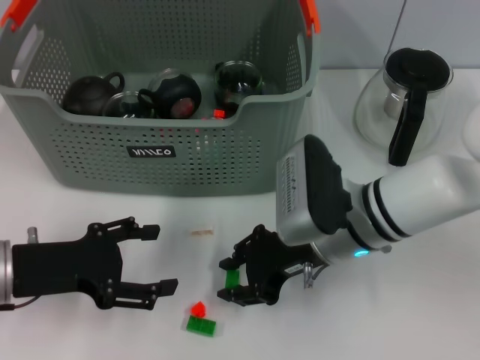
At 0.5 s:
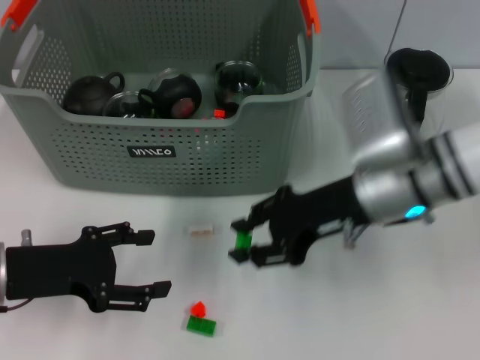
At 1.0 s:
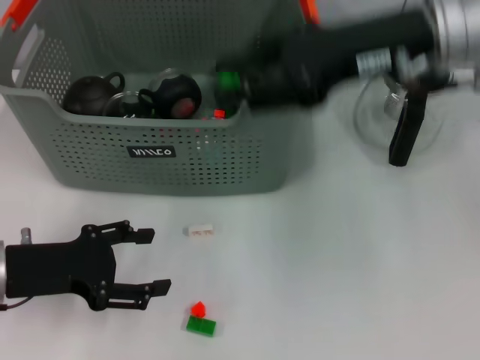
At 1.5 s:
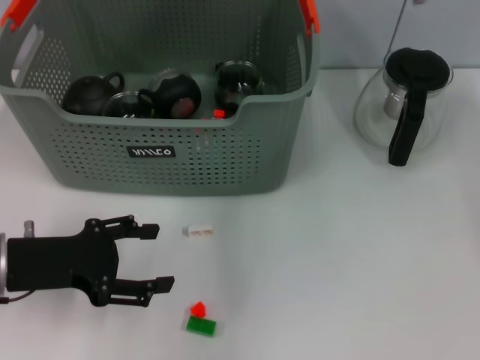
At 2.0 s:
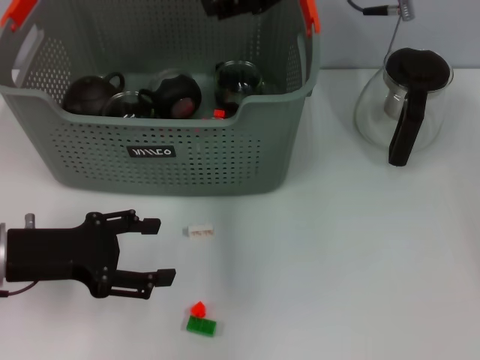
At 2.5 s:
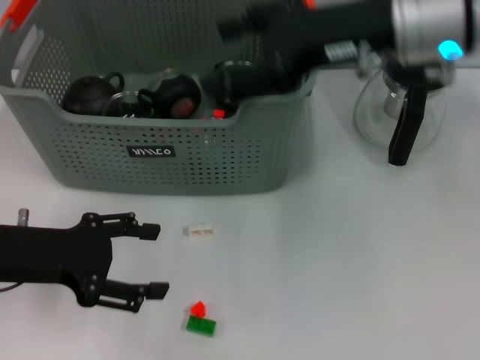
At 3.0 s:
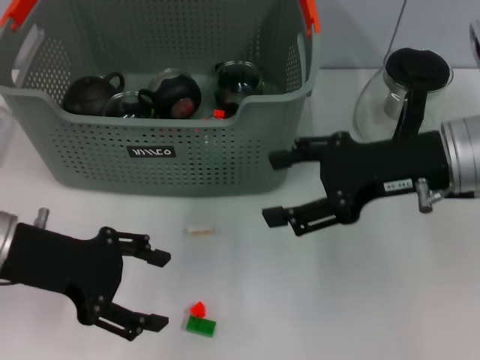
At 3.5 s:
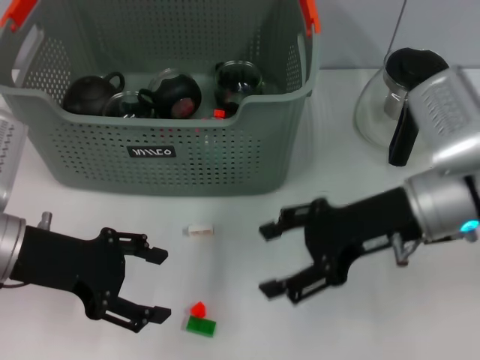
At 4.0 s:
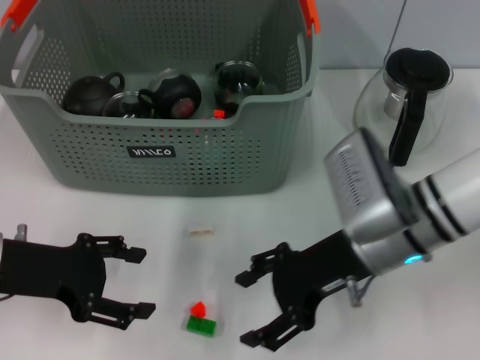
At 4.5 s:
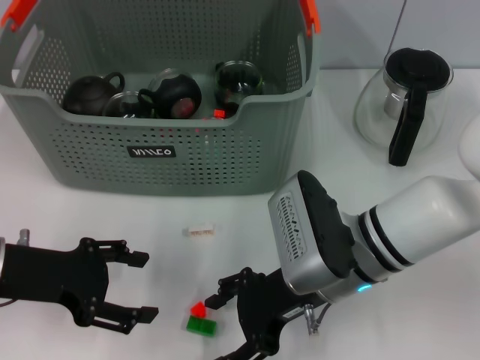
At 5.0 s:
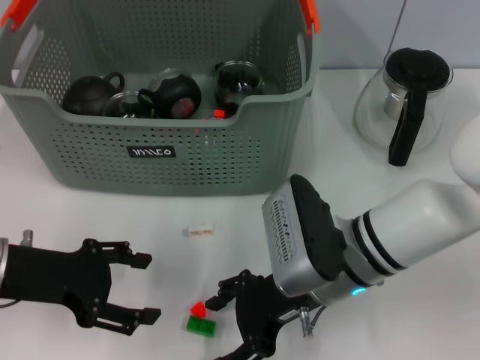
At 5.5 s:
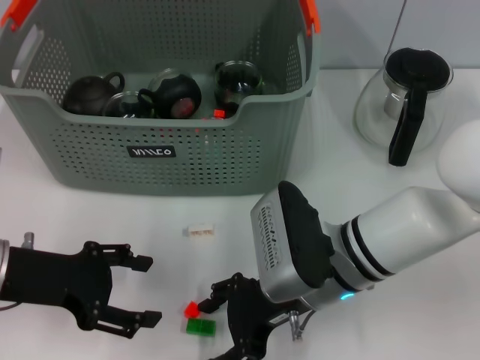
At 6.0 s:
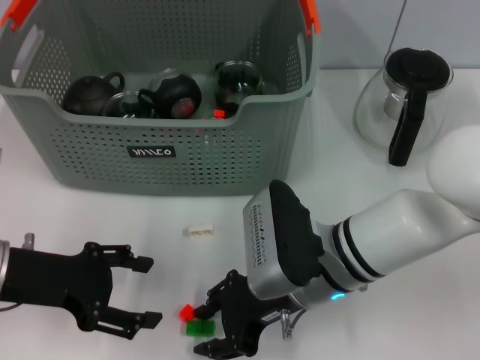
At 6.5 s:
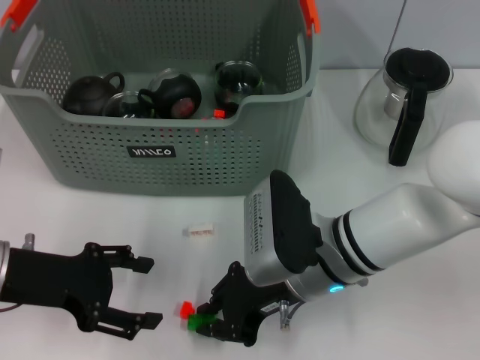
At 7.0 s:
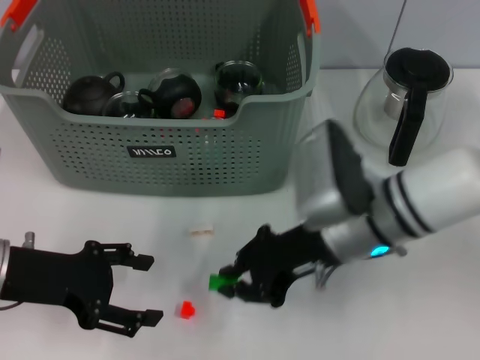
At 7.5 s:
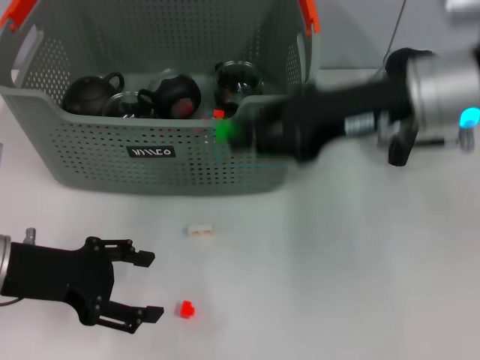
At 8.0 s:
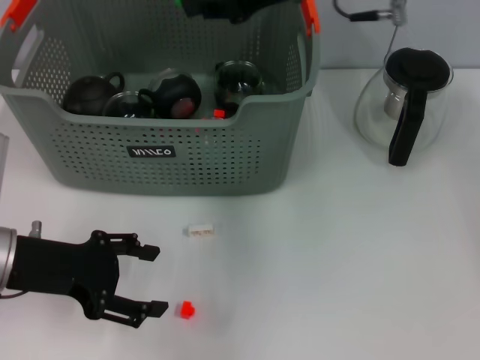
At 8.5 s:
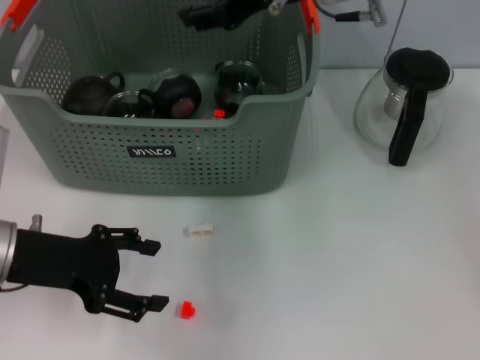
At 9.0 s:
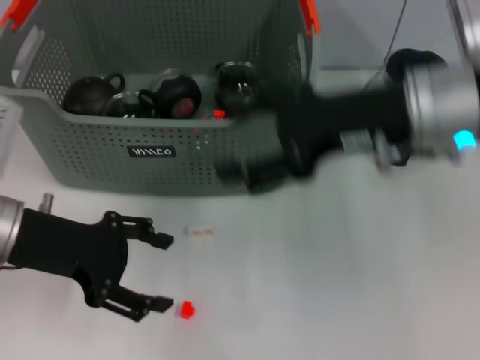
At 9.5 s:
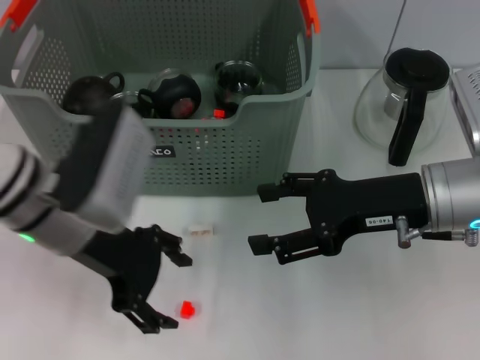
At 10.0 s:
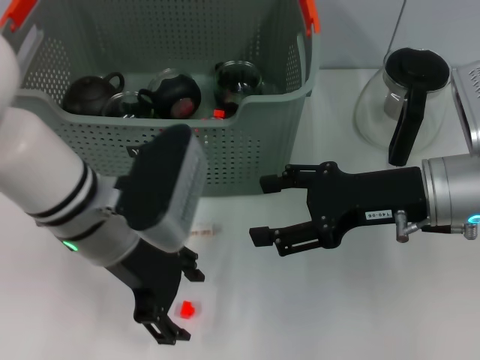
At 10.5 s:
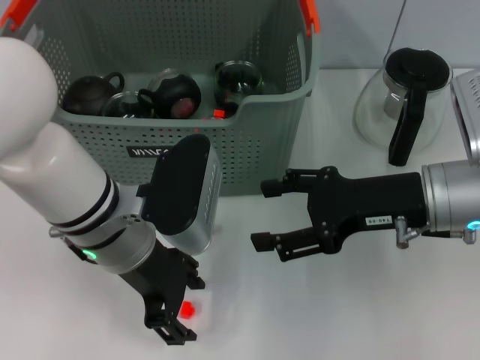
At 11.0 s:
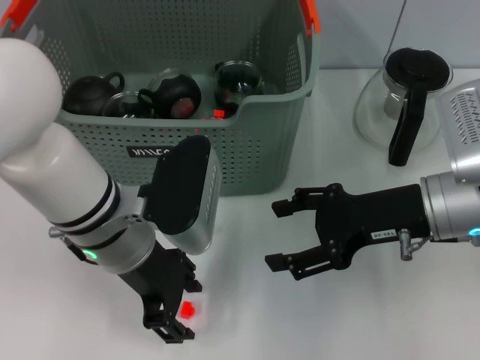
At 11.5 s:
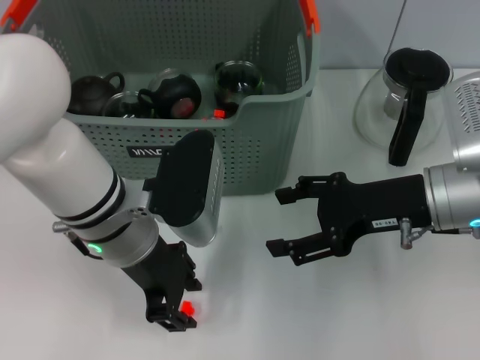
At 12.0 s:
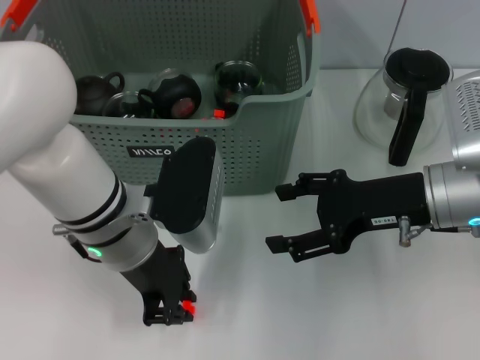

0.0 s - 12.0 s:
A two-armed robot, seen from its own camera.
Task of the whole recording: pick up the teacup on the table and place it into the storage bin, pick up the block on the table and place it into the storage bin.
Step, 0.0 s - 1.5 s: Place the green block in the storage box with right gripper.
Step, 2.0 s - 6.0 s: Grasp the green block with right gripper.
Step, 6.5 s - 8.0 s: Place the green block in the storage box with right gripper.
0.0 s - 2.0 s: The right gripper goes roughly 20 cm upward and forward.
2.0 s - 4.0 s: The right gripper travels downward and backward by approximately 20 cm.
4.0 s - 6.0 s: The right gripper heads to the left, covering about 5 cm.
6.0 s - 8.0 s: The right gripper travels upward and forward by about 25 cm, and closes up.
8.0 s - 10.0 s: The left gripper shifts approximately 15 cm to the right; the right gripper shifts some 20 cm downward, backward and to the right, and opens.
10.0 s - 12.0 s: The left gripper closes its fingers.

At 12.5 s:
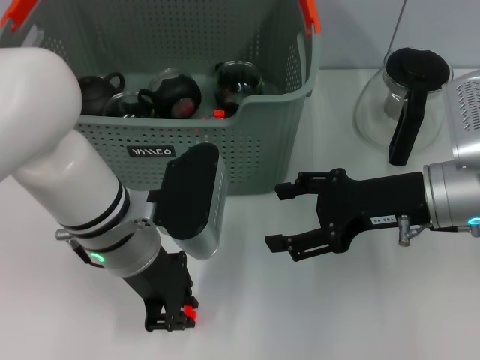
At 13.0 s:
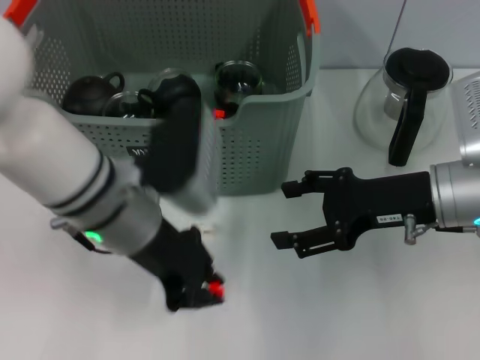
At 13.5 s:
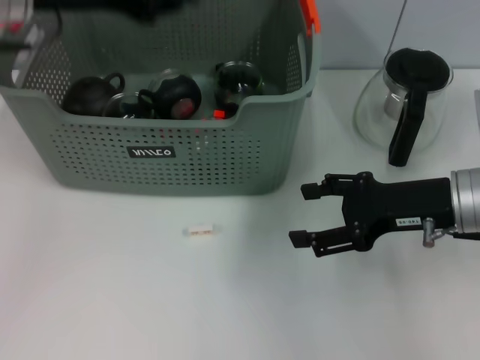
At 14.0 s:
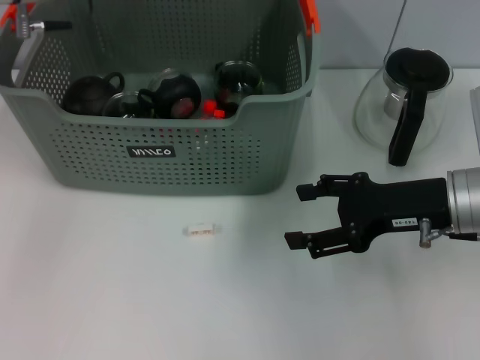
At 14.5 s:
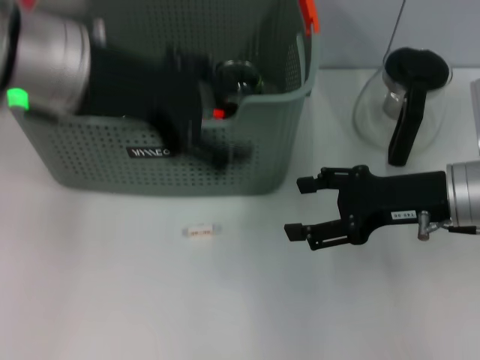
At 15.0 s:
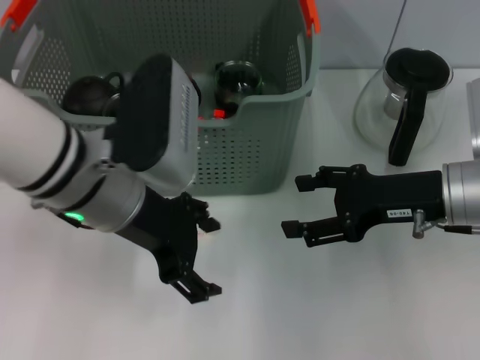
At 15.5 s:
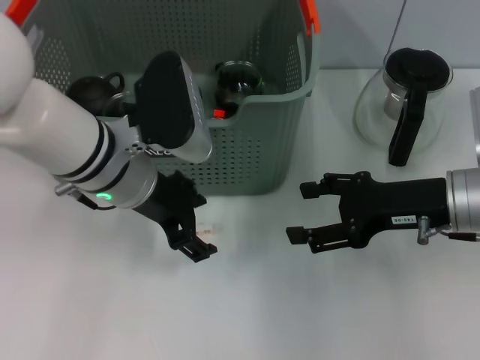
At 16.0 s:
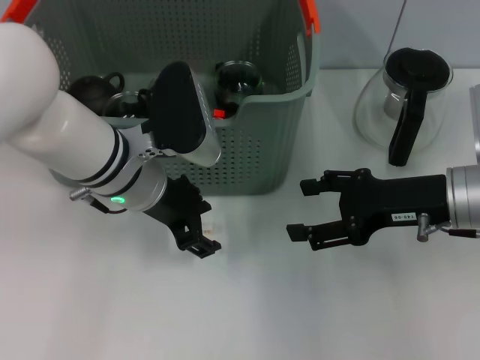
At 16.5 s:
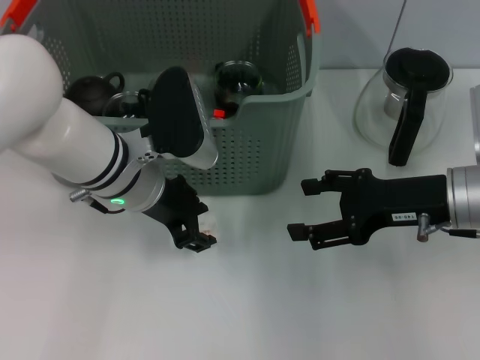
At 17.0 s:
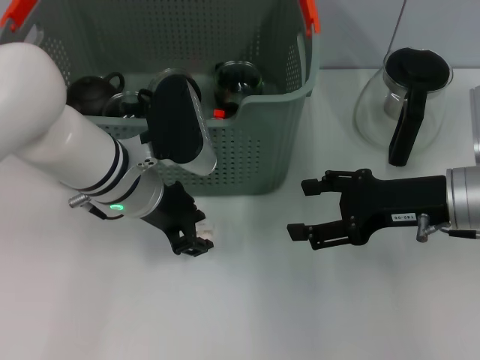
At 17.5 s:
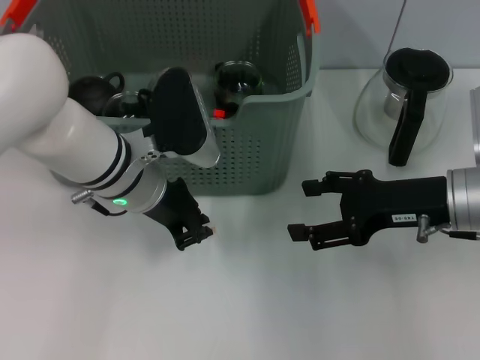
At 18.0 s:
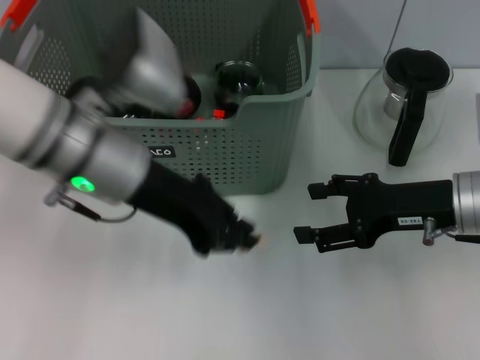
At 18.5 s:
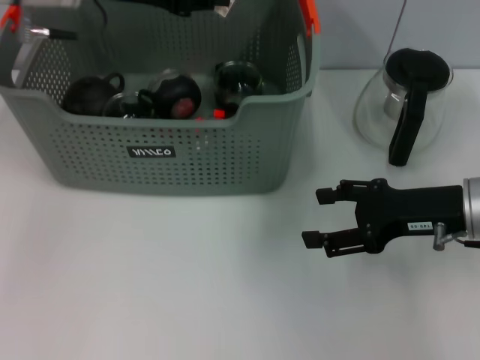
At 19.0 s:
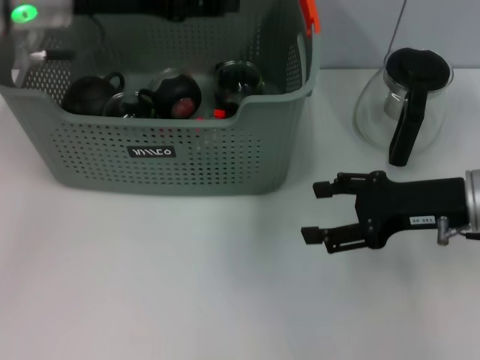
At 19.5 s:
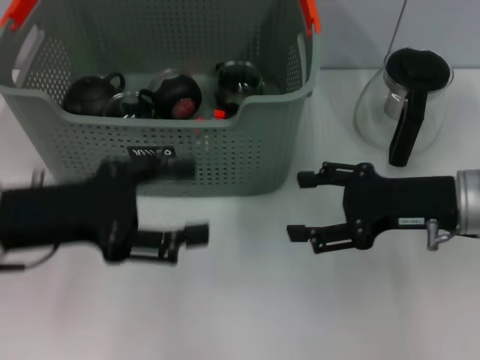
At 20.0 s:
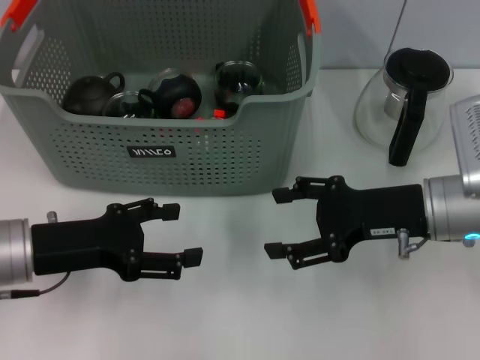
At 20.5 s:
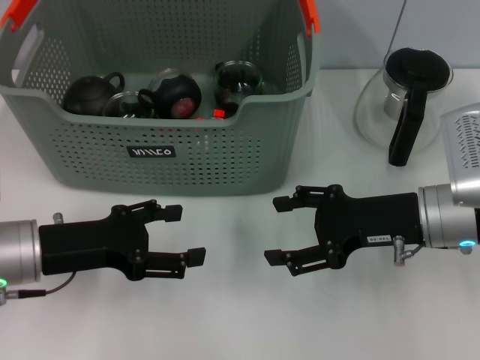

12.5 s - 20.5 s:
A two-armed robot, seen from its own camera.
Task of the whole recording: pick up the teacup on the table and place it into the storage bin, pick up the block on the table and place it into the storage bin.
Step, 12.5 s - 14.0 s: Place the orange block in the storage box with left gripper.
Step, 14.5 s - 17.0 s: Grasp the white block with left gripper.
Step, 17.5 s - 18.5 s: Place the white block in the storage box with left gripper.
12.5 s - 14.5 s: The left gripper heads upward, covering roughly 15 cm, and opens its fingers.
14.5 s - 16.5 s: The left gripper goes some 15 cm downward.
16.5 s - 18.5 s: The left gripper travels upward and to the left by some 15 cm, and closes up.
18.5 s - 20.5 s: The left gripper shifts approximately 25 cm downward and backward, and opens its fingers.

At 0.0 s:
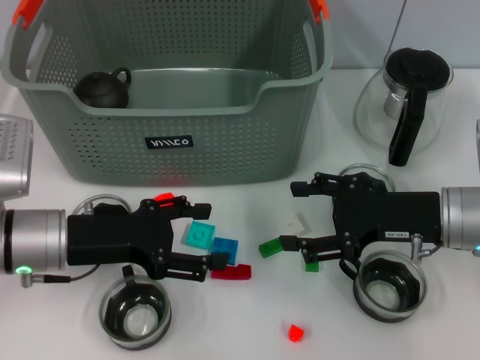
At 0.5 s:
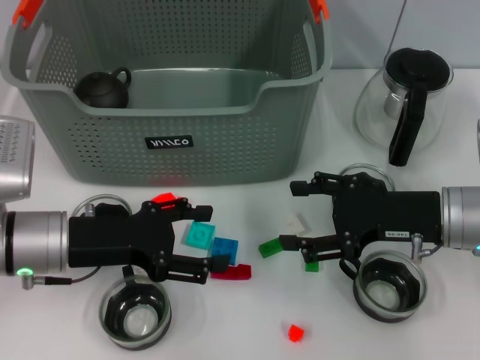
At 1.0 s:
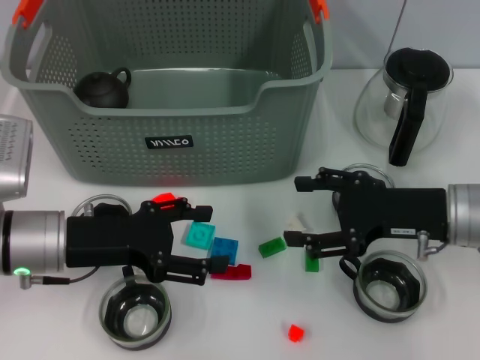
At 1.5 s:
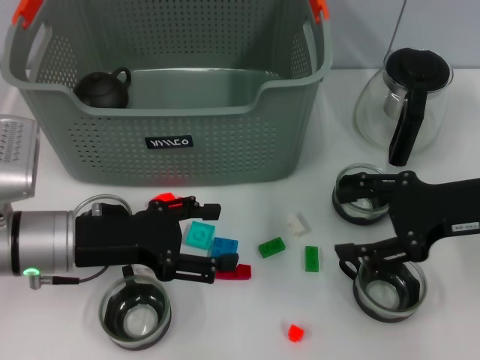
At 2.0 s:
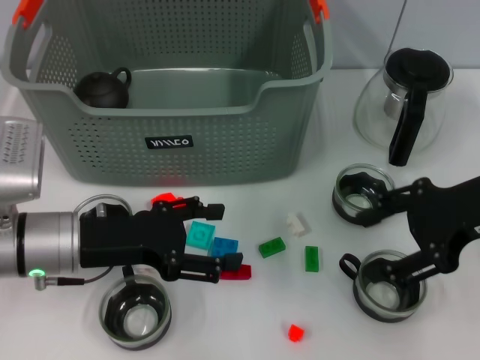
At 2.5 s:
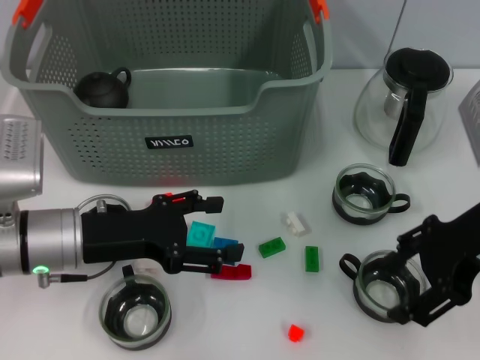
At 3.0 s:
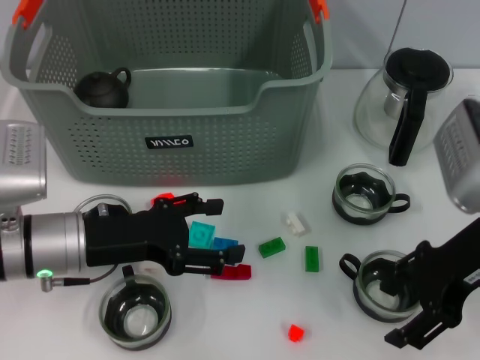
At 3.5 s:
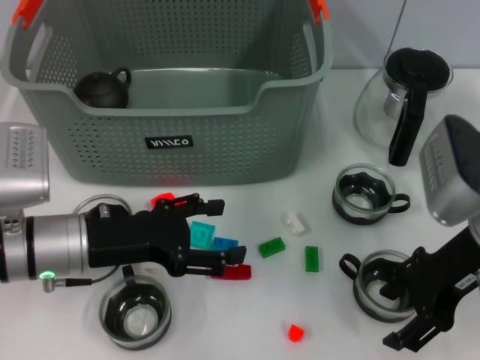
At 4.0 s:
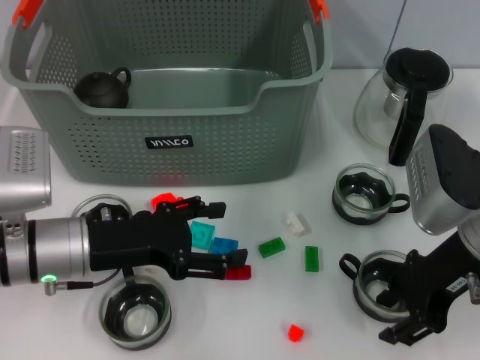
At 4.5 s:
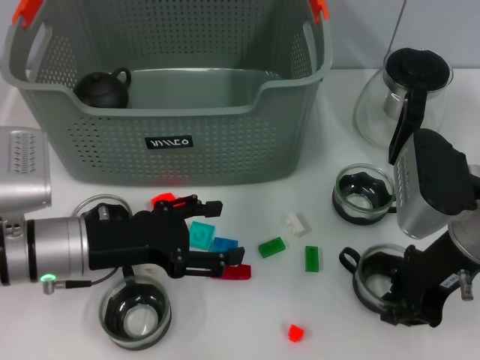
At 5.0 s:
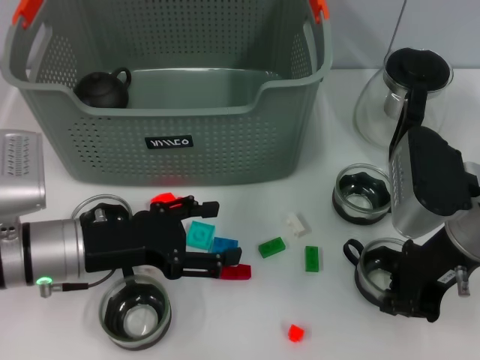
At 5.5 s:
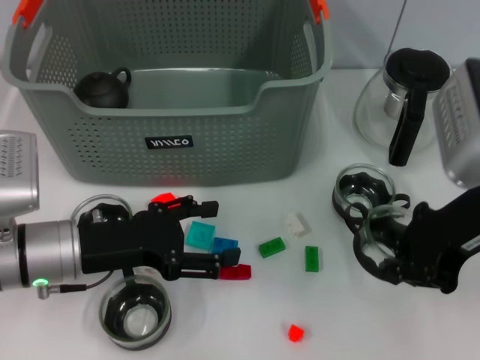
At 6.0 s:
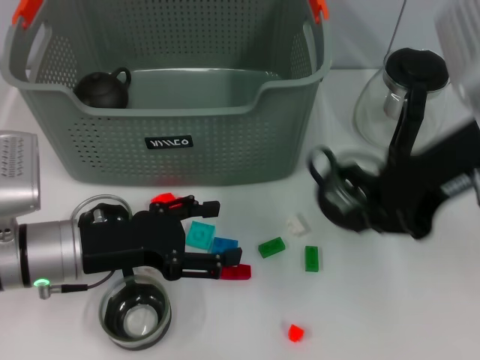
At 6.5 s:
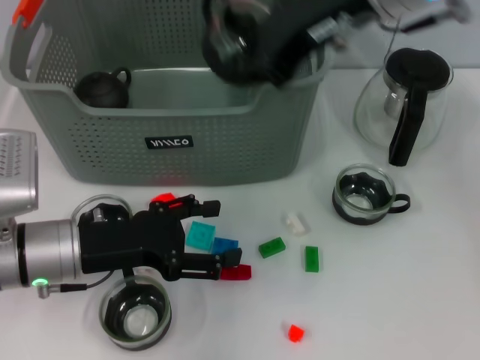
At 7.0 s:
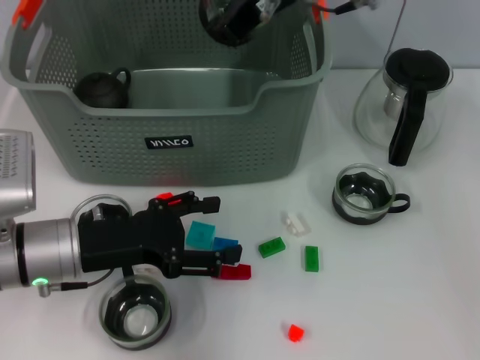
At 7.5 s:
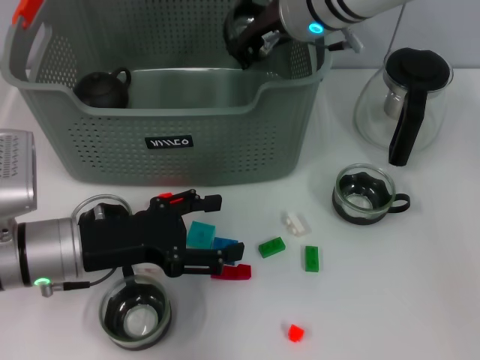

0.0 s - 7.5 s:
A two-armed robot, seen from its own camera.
Task of the whole recording: pick up the teacup on the table and place it into the storage bin, pick up the block on the table and place it into the storage bin.
Step, 0.0 s - 4.5 s: Grasp the cup with right gripper.
0.0 s - 2.0 s: The right gripper travels upward by roughly 10 cm.
2.0 s - 4.0 s: The right gripper shifts by roughly 5 cm.
4.0 s - 5.5 s: The right gripper is displaced upward by roughly 5 cm, and closes up.
5.5 s - 7.5 s: The right gripper heads forward and to the left, covering about 20 cm.
